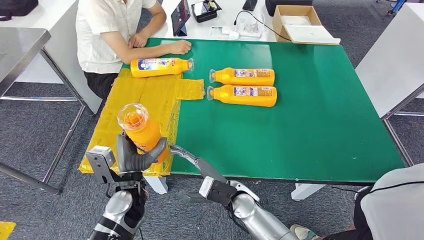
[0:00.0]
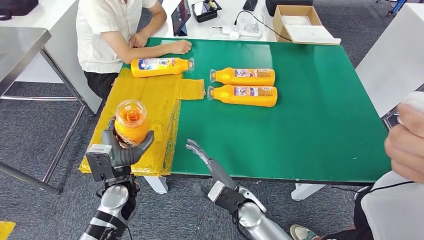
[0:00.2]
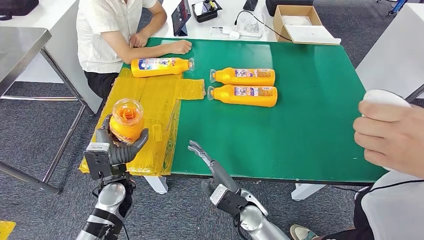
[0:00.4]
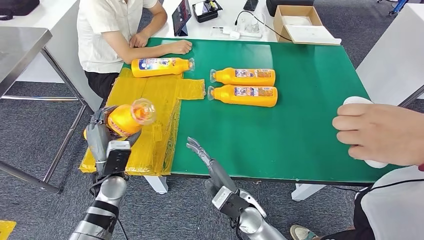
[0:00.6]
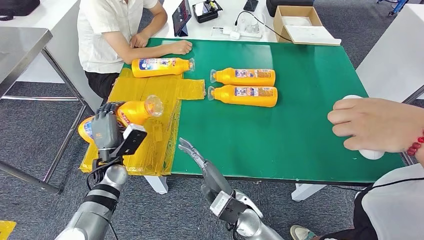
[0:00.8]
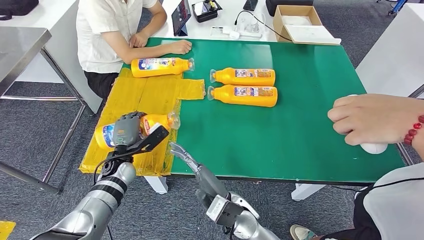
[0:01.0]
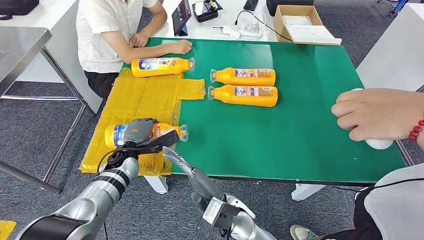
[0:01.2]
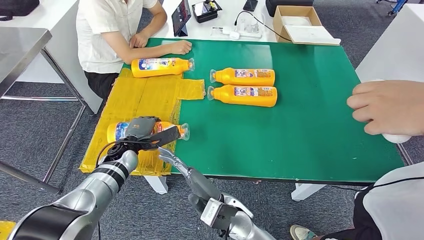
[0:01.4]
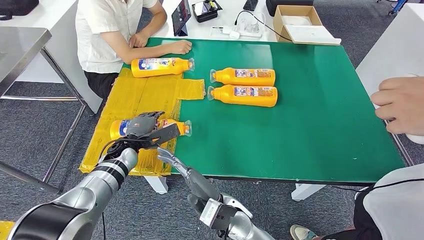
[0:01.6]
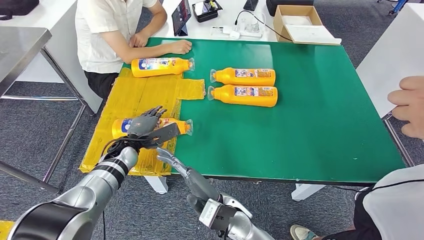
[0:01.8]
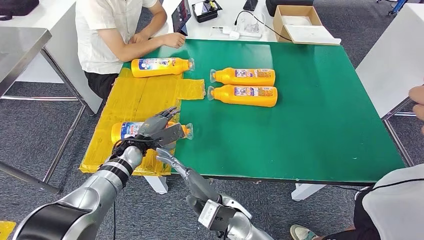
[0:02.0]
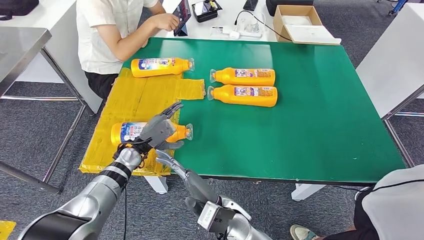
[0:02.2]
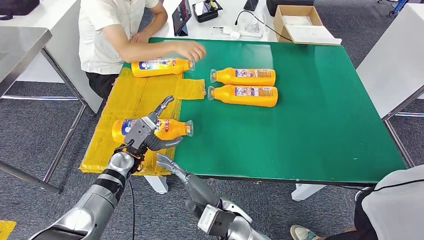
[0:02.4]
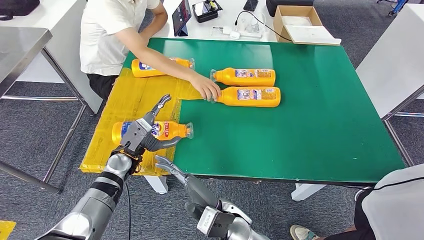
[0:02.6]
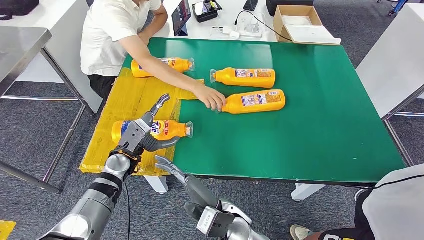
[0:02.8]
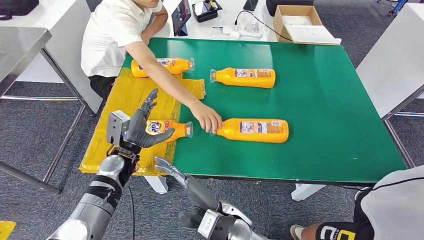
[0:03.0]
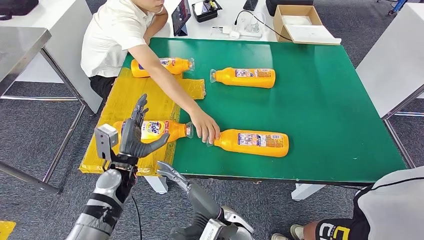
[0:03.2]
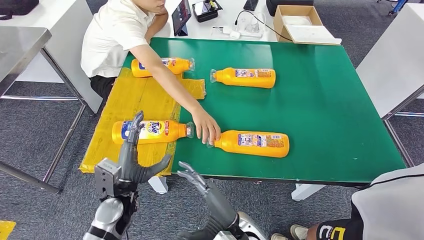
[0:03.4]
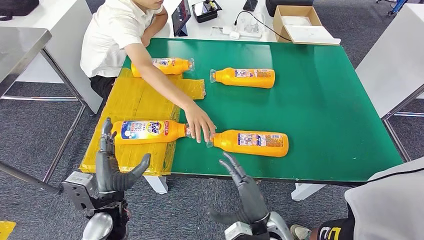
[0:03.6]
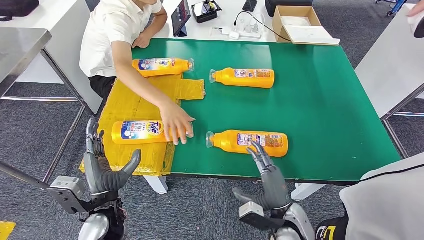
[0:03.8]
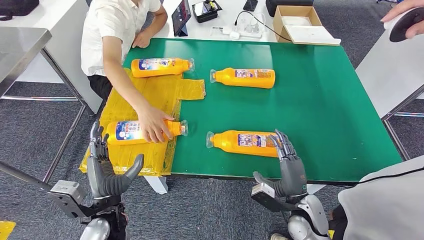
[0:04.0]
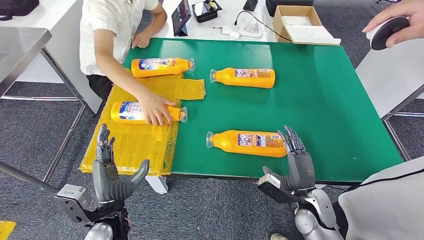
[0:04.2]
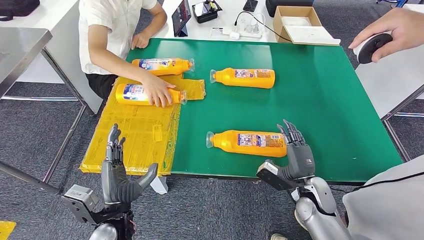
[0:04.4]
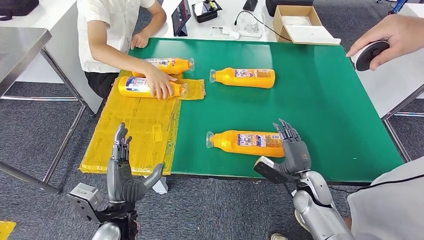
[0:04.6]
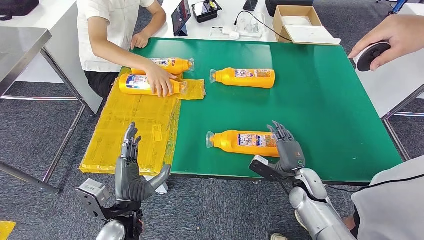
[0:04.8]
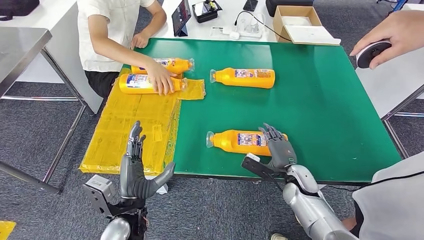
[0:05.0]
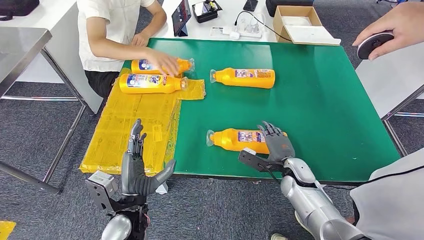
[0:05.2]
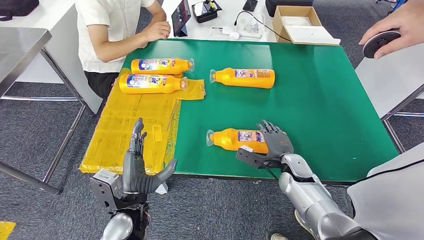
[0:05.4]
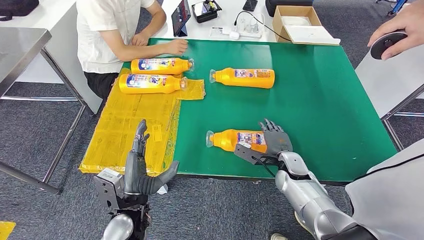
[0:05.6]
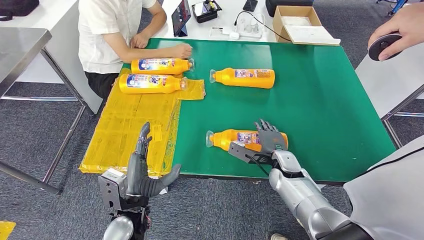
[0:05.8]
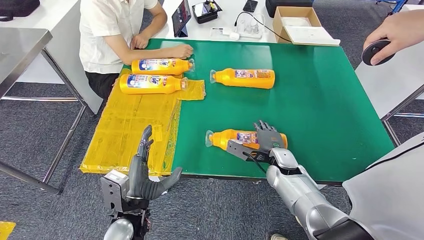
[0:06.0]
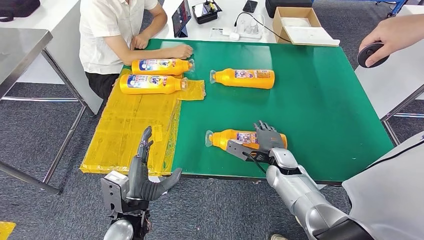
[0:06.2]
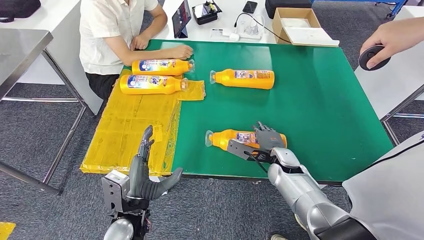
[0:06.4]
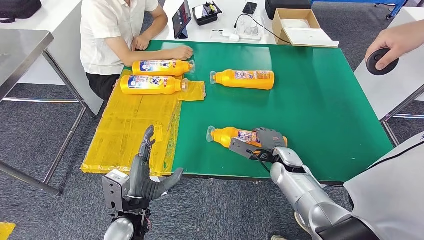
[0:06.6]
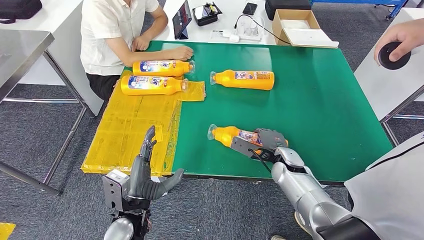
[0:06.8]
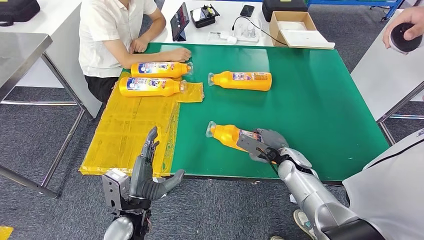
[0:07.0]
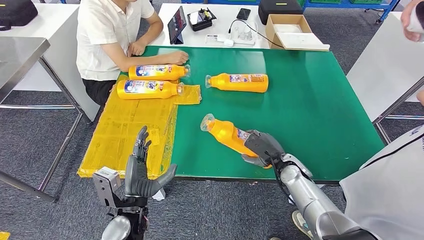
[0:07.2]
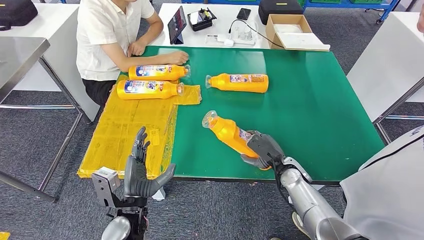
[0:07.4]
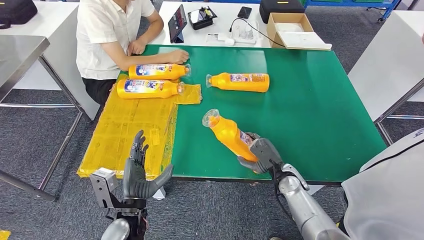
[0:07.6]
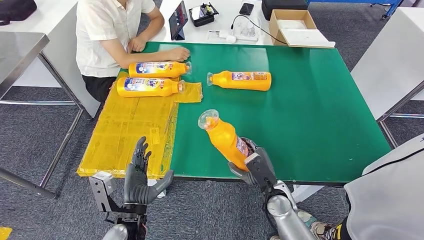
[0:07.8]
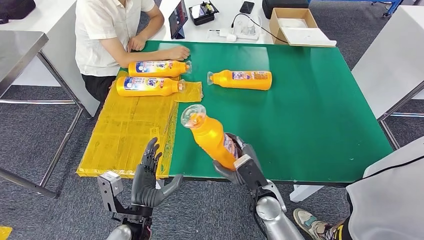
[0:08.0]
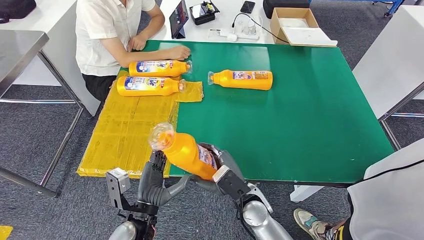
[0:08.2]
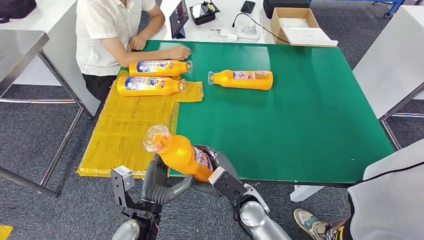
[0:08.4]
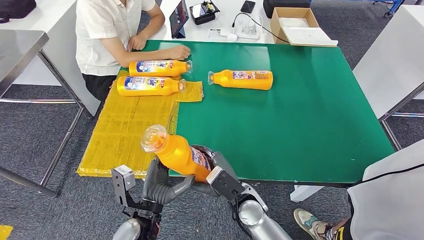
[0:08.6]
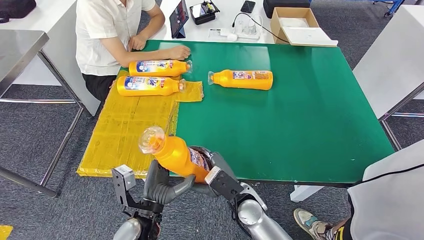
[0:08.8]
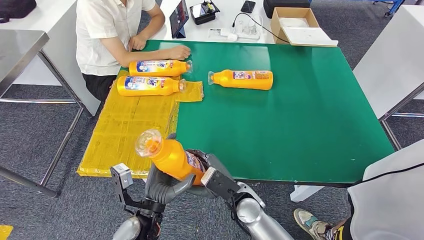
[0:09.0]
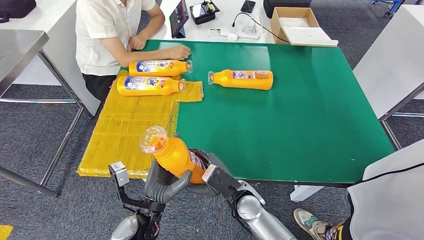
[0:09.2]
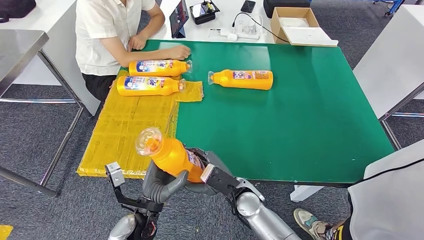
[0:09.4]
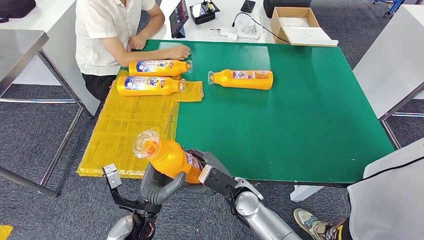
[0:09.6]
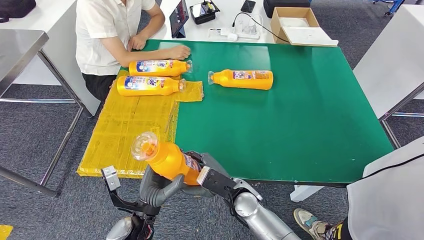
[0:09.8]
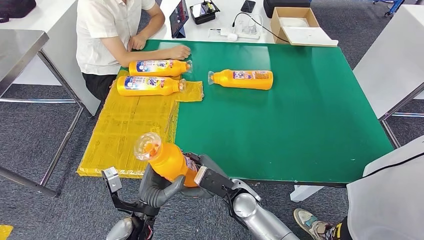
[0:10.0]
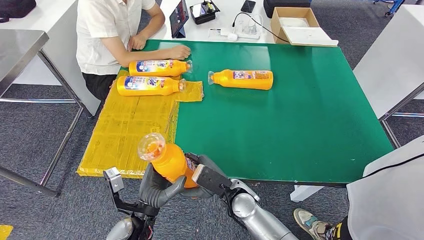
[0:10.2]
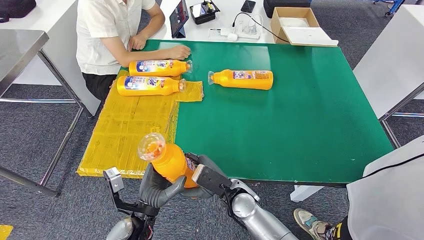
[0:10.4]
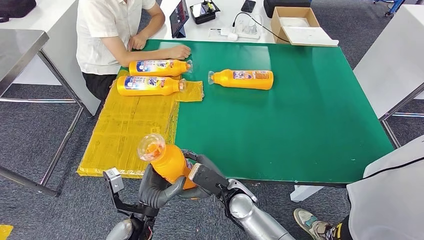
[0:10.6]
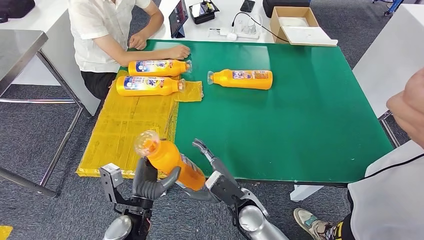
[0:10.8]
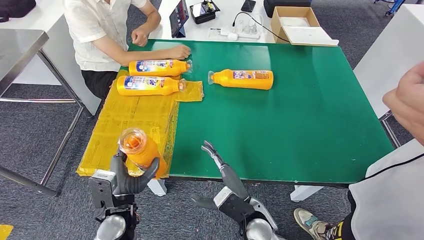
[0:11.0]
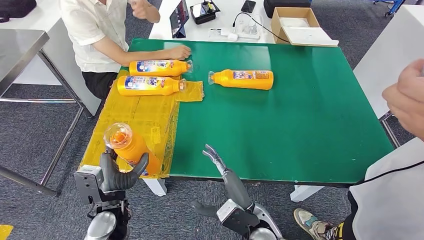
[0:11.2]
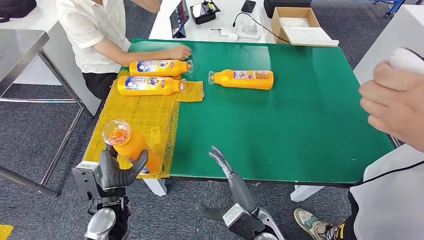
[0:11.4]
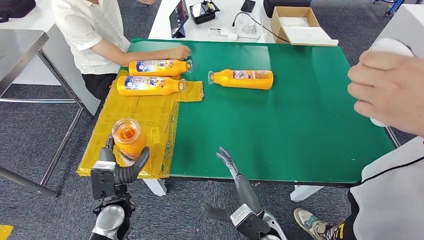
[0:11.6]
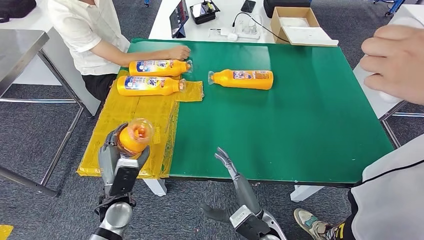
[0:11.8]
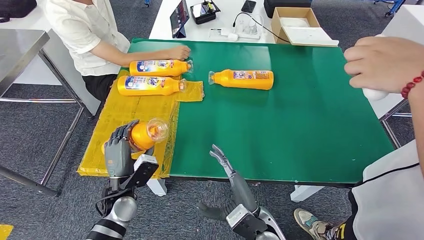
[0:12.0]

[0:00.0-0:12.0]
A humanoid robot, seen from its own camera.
Step, 0:00.0 to 0:02.2: Flip the fast-moving consumer goods bottle to the front side.
Step, 0:02.6 to 0:07.8: Pick up the fast-moving consumer goods bottle from the table.
0:00.0 to 0:01.6: The left hand travels forward and to the left by some 15 cm, while the right hand shifts by some 5 cm.
0:04.4 to 0:06.0: The right hand travels to the left and forward by about 10 cm.
0:09.0 to 0:10.4: The hands make only small movements.

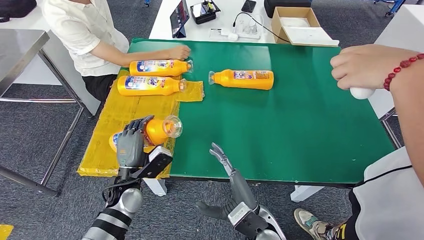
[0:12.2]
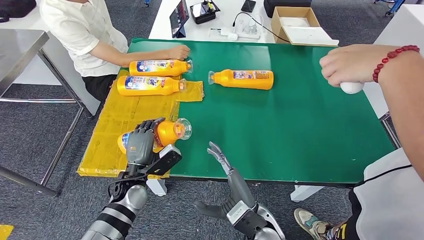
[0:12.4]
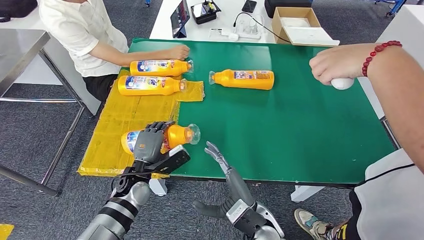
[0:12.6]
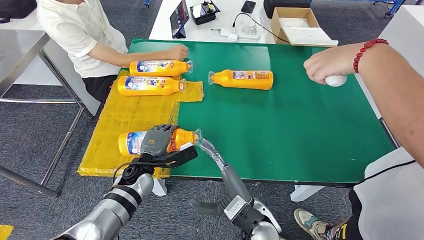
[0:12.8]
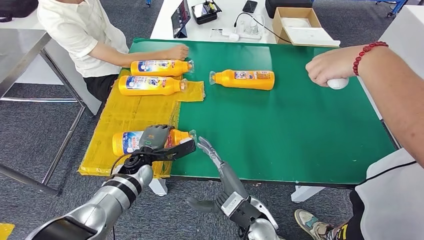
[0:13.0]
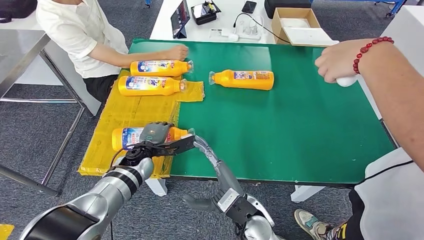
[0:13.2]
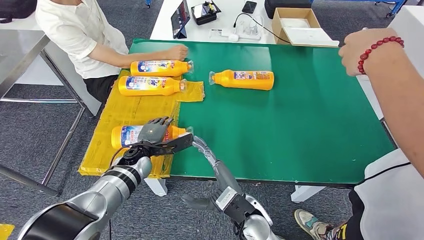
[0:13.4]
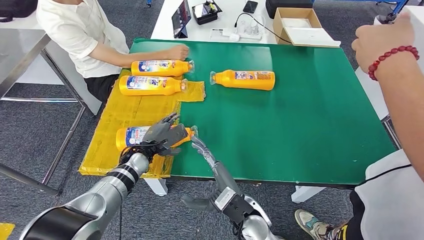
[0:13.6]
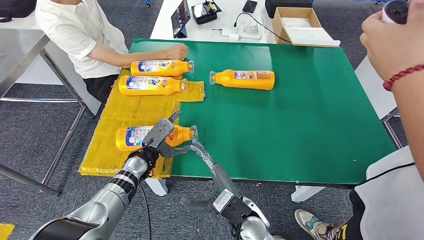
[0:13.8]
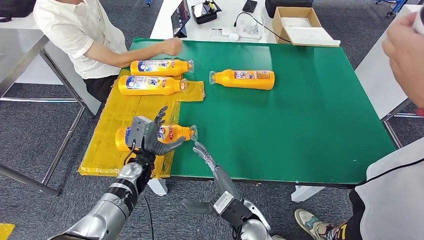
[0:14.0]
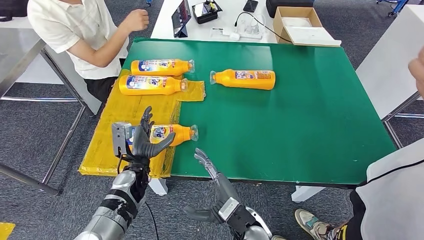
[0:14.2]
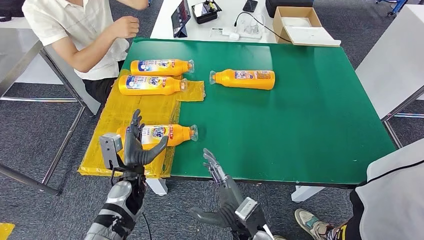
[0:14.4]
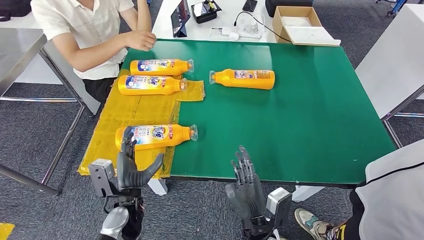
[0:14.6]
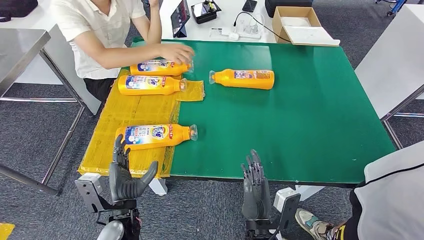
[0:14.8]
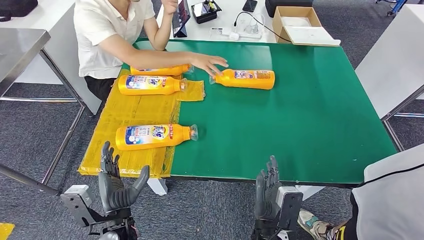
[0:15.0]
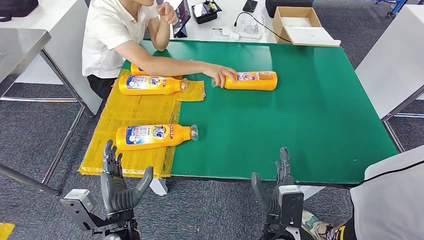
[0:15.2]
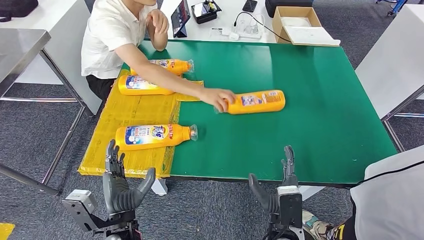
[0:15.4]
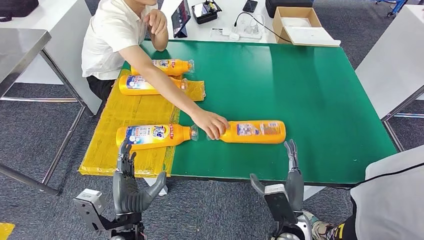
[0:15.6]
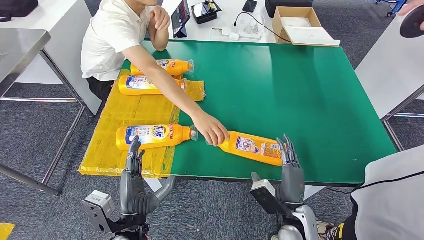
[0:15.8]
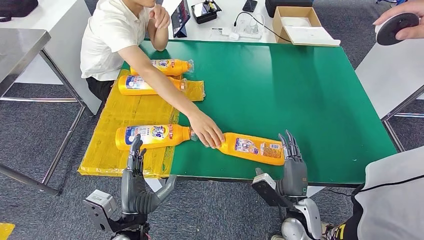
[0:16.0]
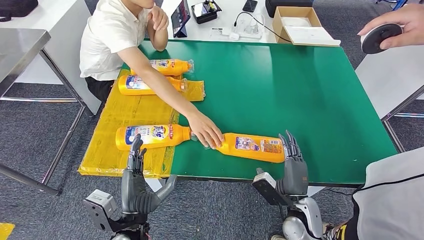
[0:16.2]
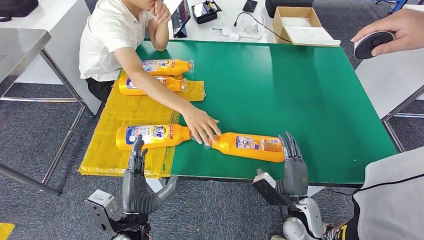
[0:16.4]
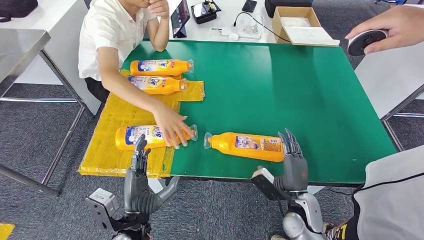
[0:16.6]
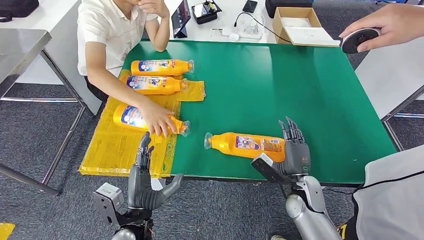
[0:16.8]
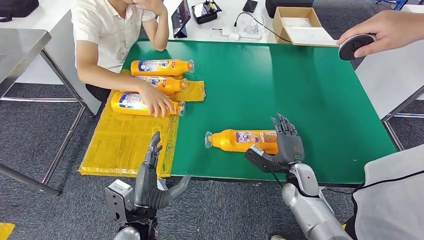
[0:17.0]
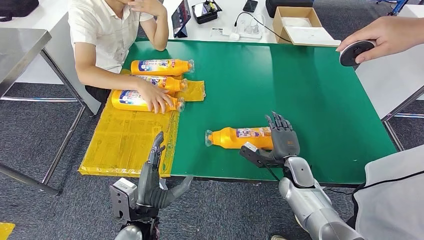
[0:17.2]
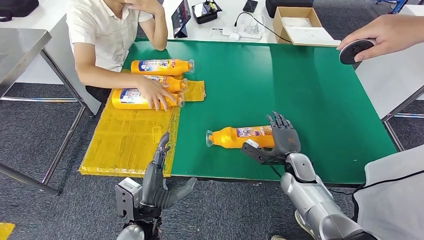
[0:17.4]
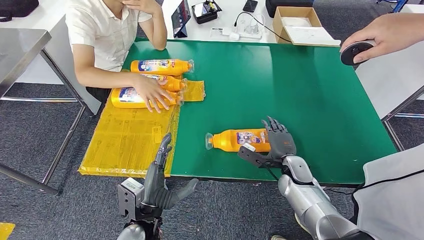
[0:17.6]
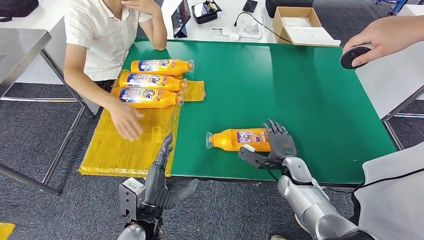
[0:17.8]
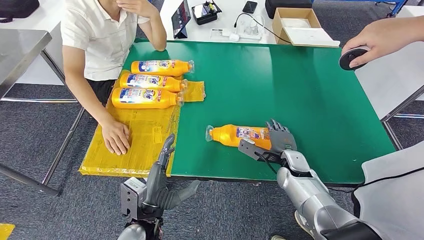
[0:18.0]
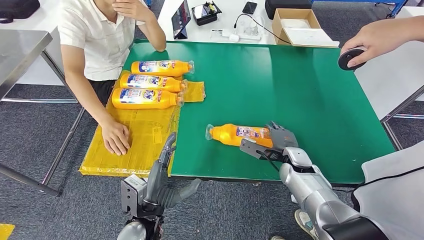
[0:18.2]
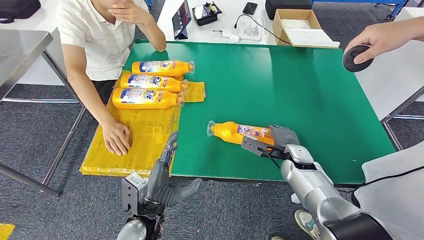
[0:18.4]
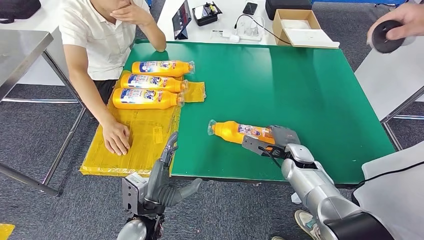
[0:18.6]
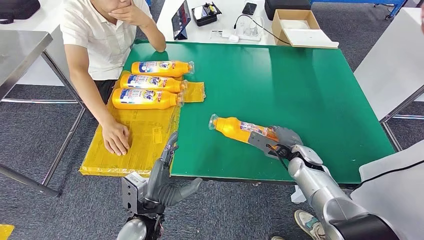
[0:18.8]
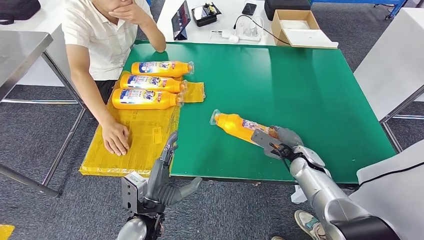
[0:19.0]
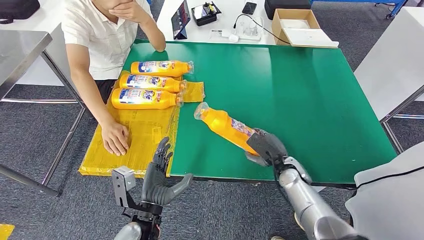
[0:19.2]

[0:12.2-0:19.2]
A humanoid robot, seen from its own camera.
Step, 0:12.2 to 0:14.8: Flip the fast-moving consumer goods bottle to the front side.
